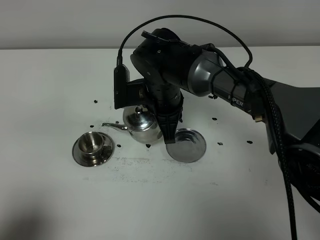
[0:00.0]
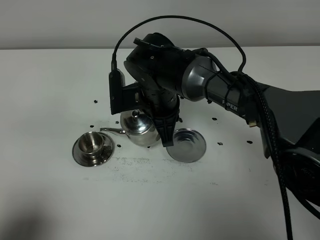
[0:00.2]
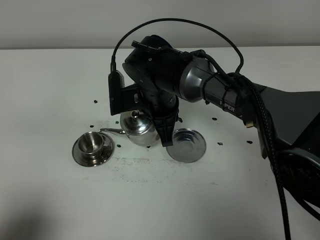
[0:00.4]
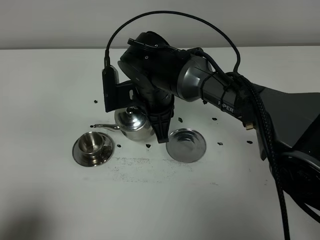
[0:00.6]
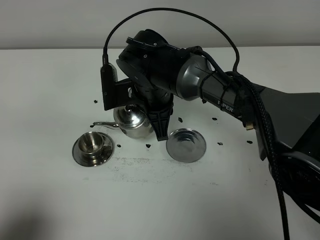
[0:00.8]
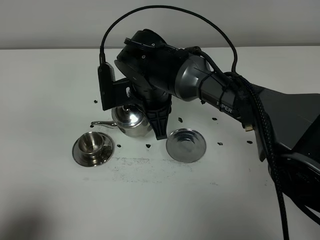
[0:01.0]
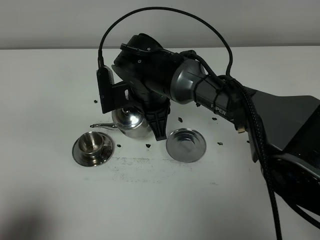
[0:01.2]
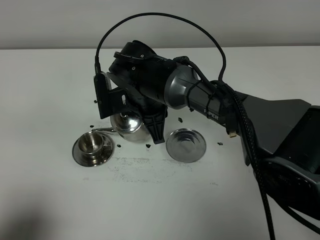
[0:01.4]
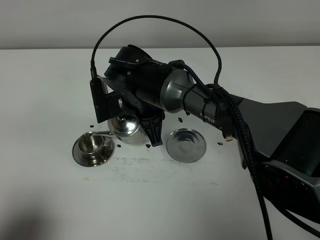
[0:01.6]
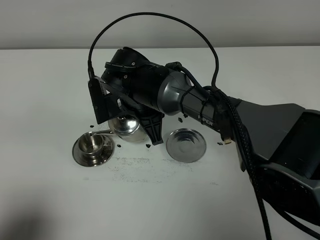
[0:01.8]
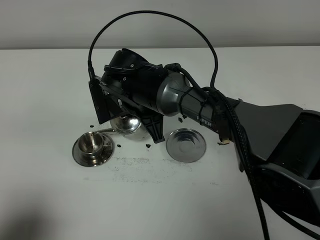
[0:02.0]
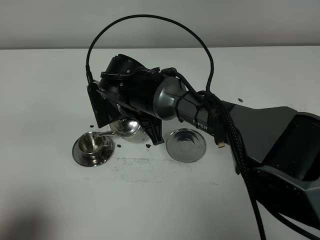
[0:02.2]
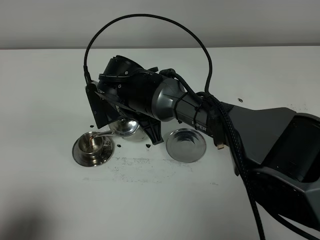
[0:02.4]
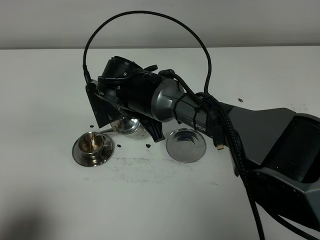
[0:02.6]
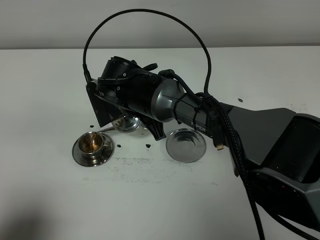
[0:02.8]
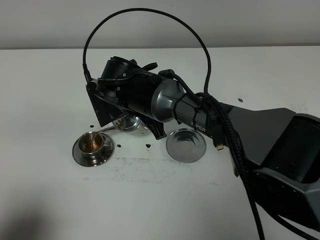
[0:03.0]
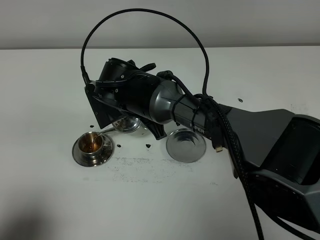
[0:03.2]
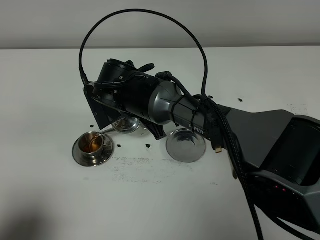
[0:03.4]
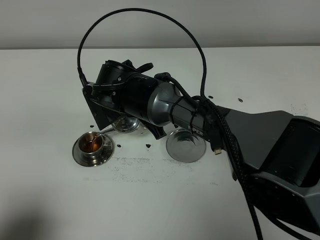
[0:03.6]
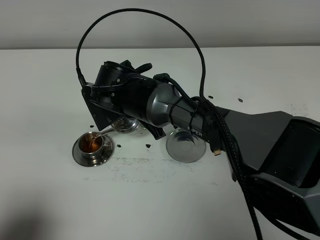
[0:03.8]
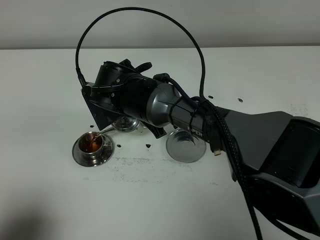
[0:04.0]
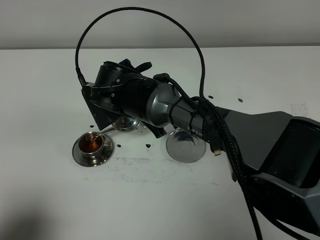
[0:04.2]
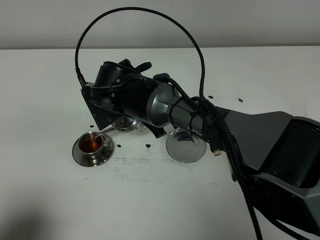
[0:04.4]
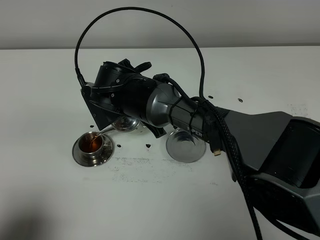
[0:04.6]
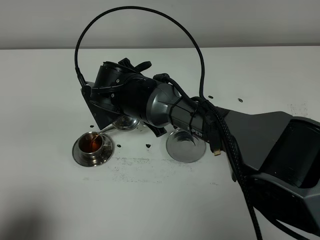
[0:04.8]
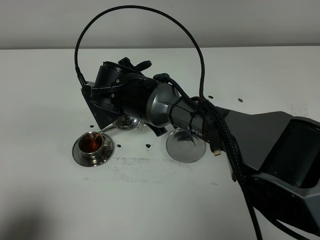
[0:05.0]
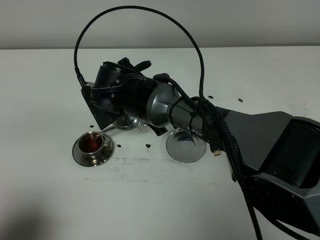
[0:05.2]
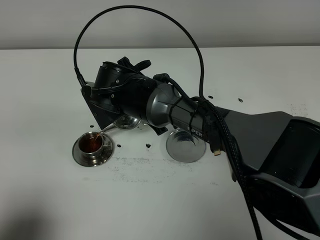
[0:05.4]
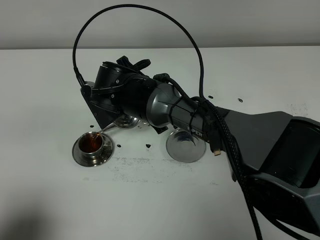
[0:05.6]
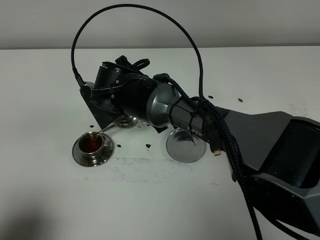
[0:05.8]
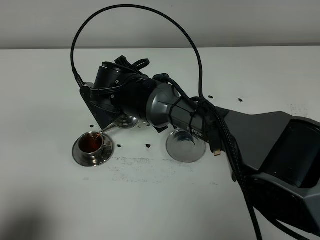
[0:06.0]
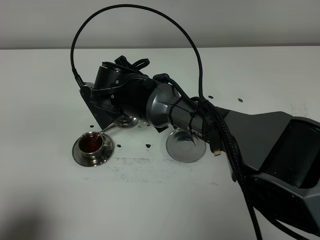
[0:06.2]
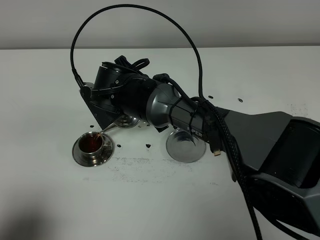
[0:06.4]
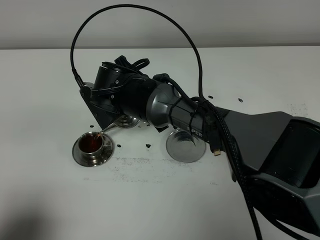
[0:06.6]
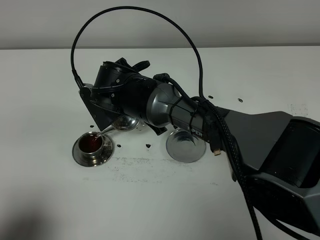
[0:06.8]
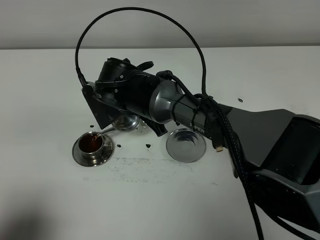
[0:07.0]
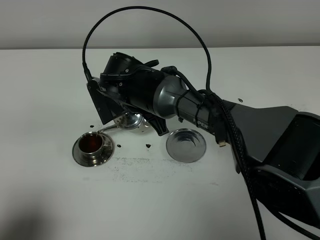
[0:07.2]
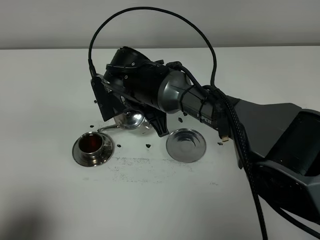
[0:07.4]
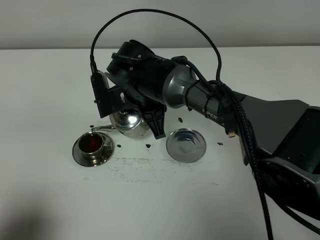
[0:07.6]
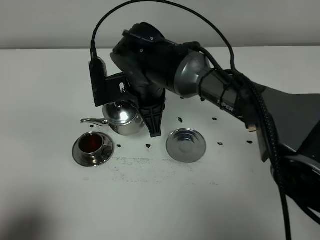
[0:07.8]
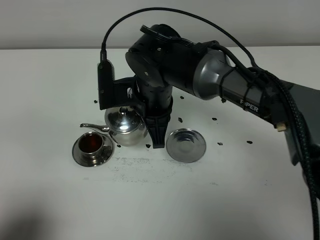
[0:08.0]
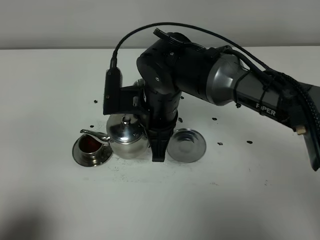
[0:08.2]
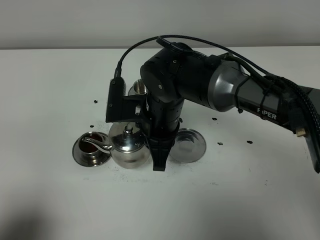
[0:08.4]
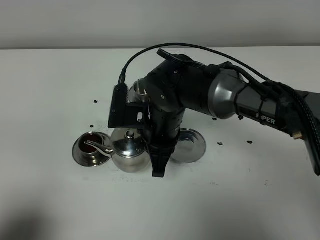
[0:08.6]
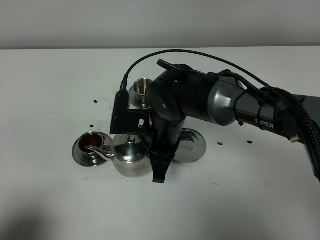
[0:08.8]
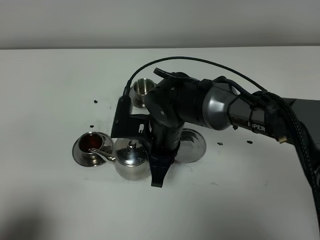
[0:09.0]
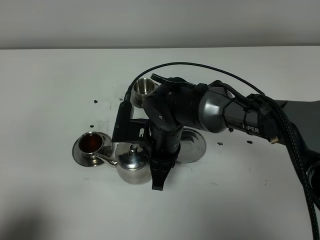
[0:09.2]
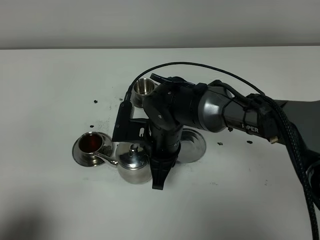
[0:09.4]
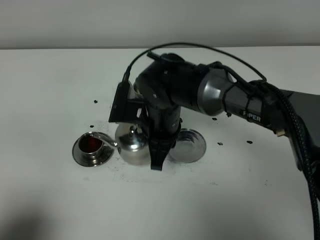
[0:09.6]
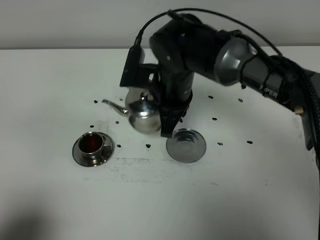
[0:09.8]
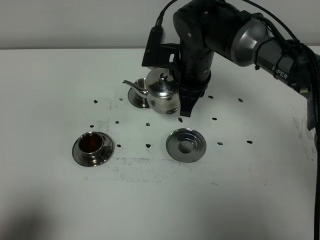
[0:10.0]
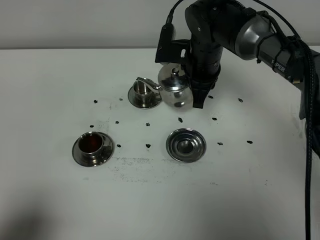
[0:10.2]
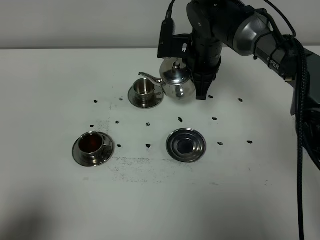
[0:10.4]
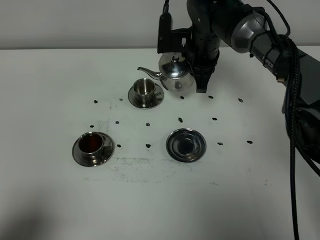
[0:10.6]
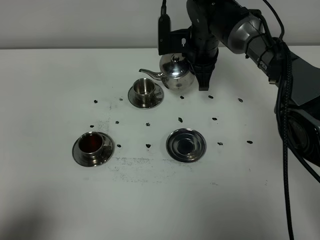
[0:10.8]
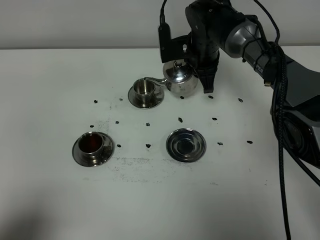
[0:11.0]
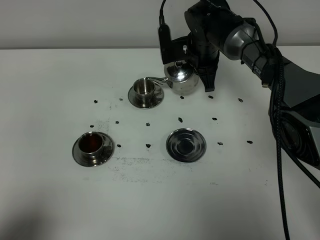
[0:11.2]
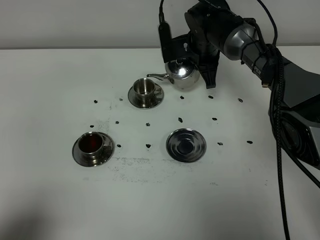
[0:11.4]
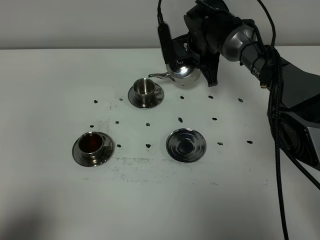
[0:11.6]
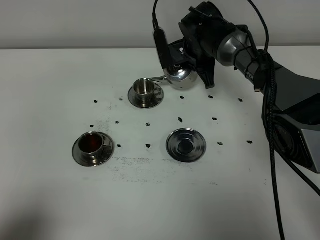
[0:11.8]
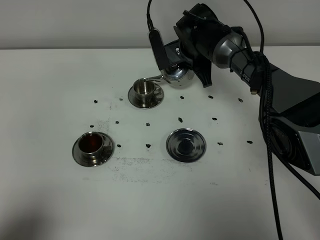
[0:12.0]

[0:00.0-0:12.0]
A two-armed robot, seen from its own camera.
Task of the whole recording: grasp the stainless steel teapot and pour the tea into the two stainless steel teacups one by one, put the stainless steel teapot back in its original place.
Step, 0:00.0 to 0:07.6: Pour tea into the teacup with the right gripper.
0:01.6 to 0:04.4: The grippers make only small movements.
0:04.4 to 0:06.0: Both grippers stay put.
0:07.6 to 0:09.0: The right gripper goes about 5 cm backward.
0:09.0 to 0:10.4: The right gripper goes about 15 cm forward and to the right.
0:10.4 to 0:12.0: The right gripper shifts some 5 cm forward.

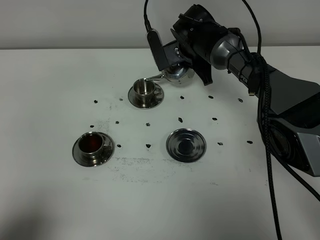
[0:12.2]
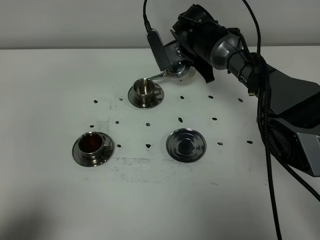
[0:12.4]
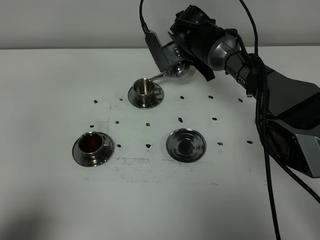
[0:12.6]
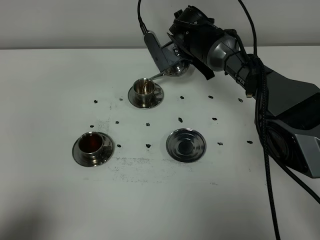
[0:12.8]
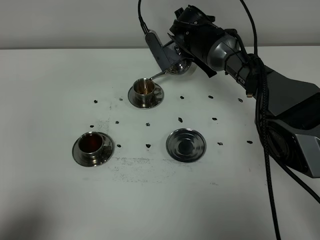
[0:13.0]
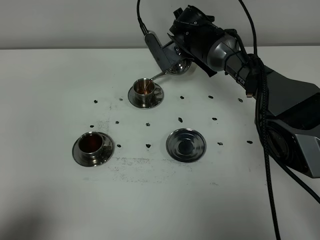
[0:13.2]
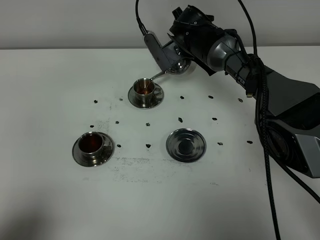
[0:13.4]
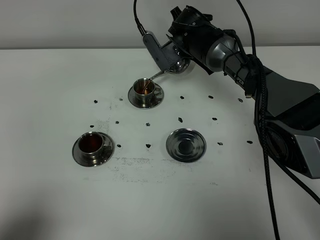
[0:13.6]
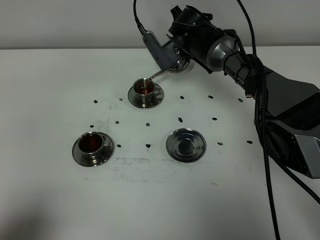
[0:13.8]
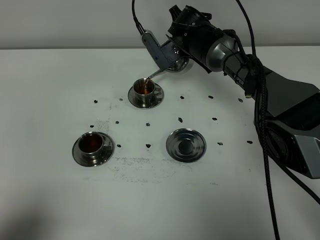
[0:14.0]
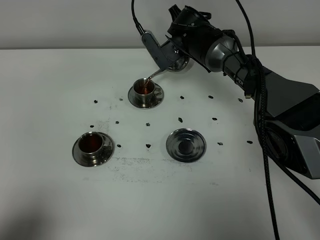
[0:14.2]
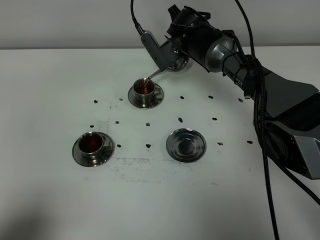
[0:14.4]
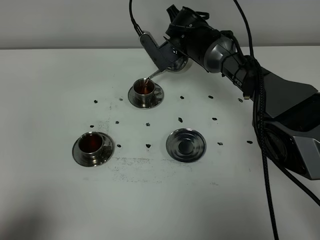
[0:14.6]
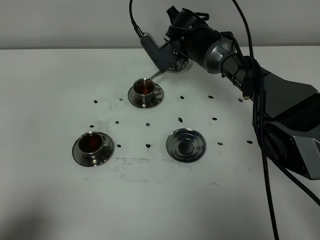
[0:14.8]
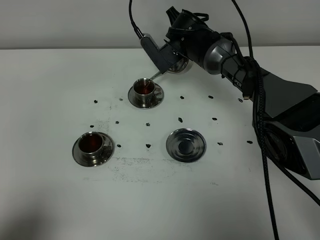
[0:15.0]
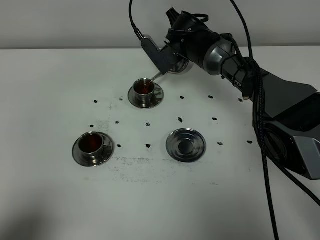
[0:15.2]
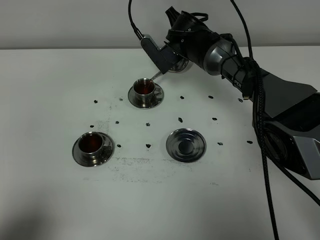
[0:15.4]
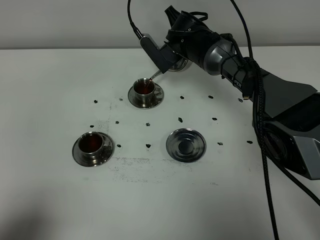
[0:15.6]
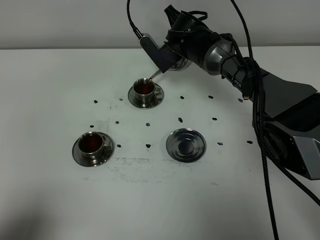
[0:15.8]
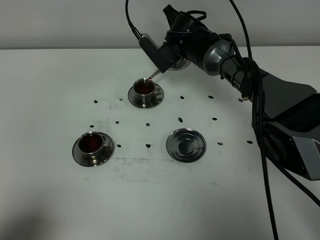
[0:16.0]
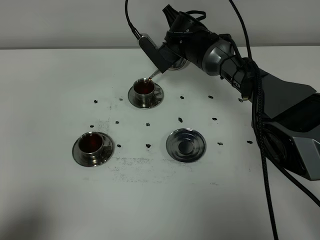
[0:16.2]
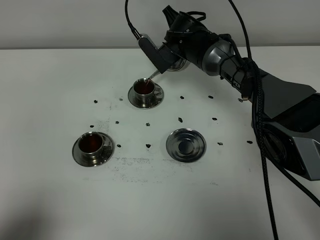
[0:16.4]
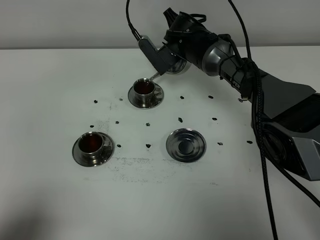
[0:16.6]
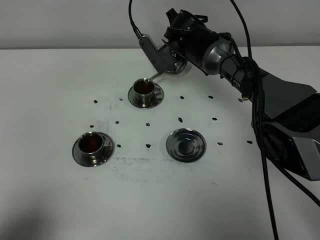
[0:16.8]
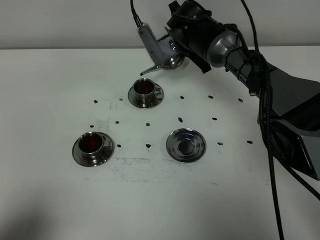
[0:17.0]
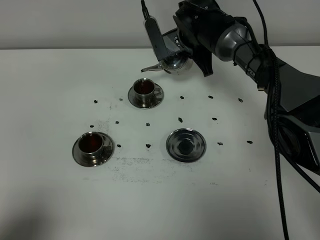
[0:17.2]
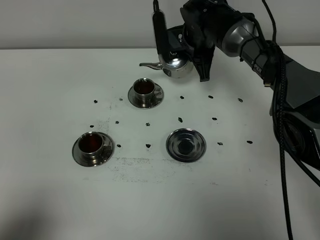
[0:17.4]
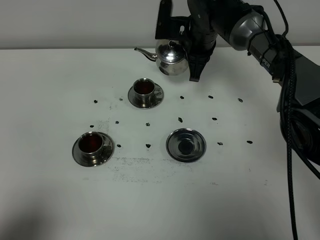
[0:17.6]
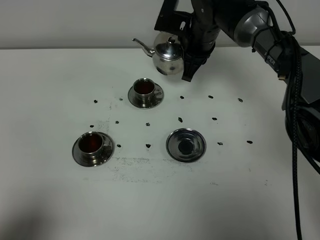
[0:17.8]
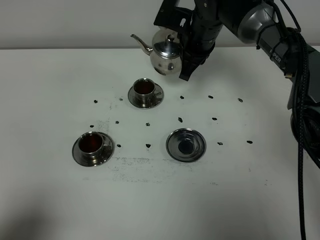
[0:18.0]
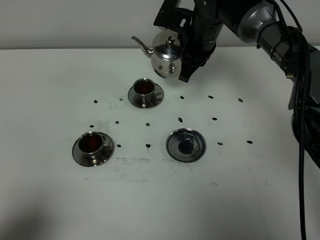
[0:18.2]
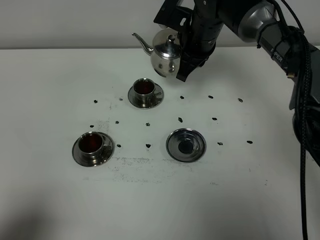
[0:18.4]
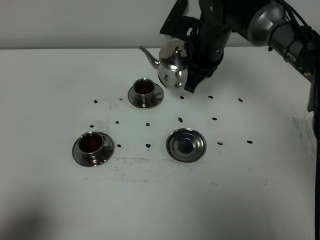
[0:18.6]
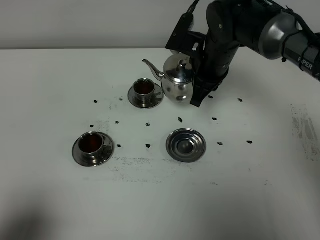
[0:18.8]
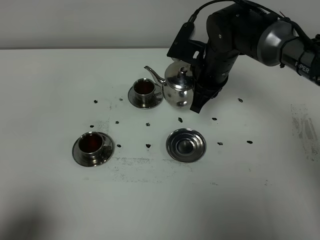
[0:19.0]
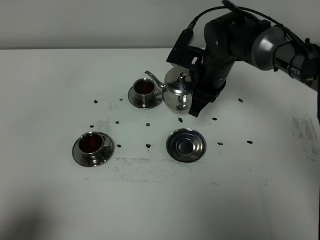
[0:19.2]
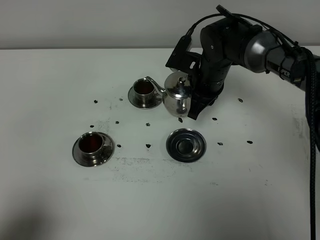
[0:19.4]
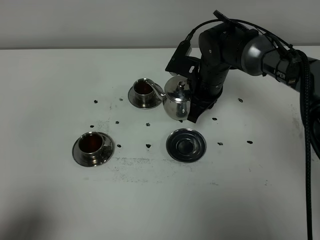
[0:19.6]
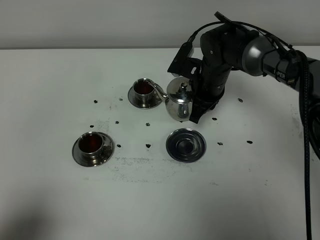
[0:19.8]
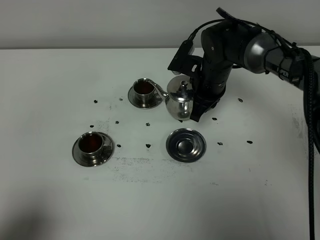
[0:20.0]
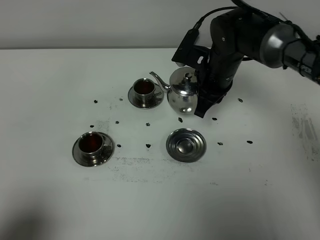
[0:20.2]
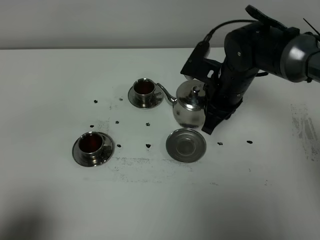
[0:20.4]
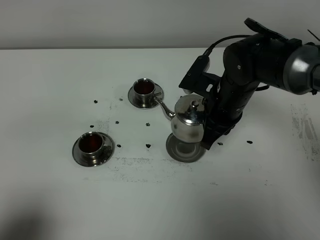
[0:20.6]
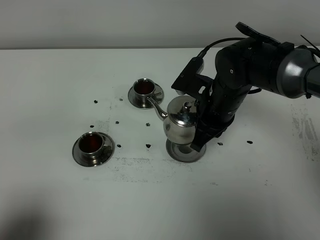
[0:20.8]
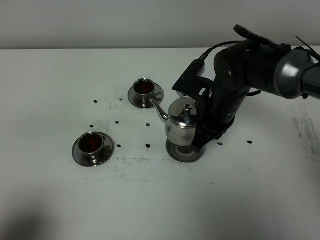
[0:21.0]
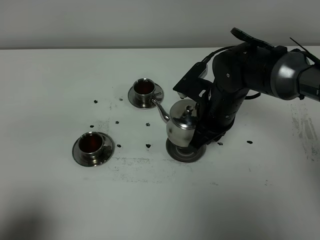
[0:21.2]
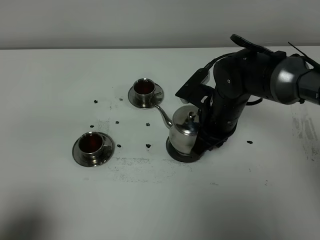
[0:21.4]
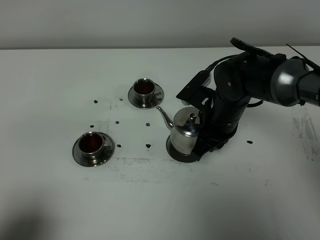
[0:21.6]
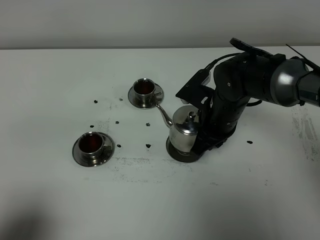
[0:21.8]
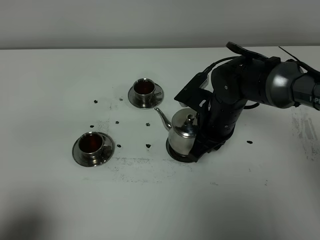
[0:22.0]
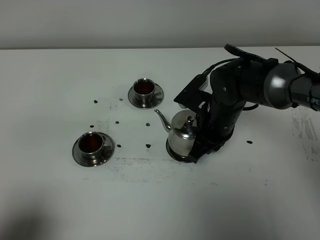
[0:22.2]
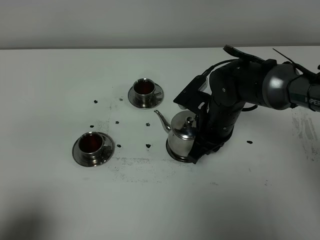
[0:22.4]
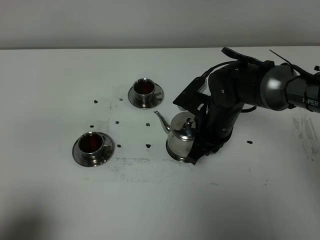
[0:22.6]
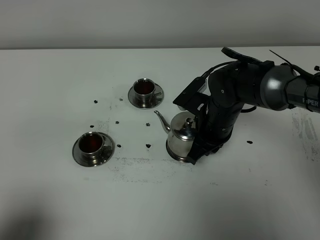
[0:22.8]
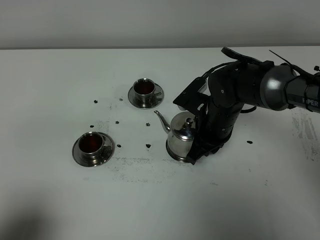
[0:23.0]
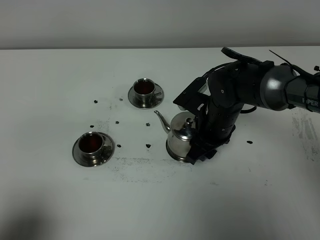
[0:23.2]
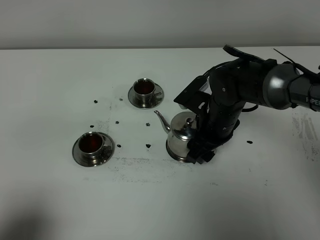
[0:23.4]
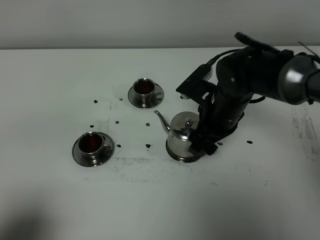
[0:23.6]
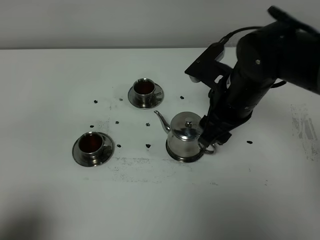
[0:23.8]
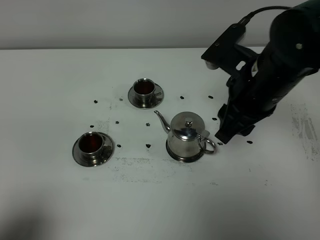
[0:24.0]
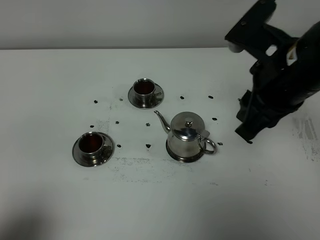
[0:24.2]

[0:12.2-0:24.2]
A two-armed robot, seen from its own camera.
Task of the whole recording: grasp the stainless steel teapot and pour the tea into the two stainless steel teacups one by one, put the stainless steel teapot back in its original place.
Step, 0:12.2 to 0:17.0: Pour tea into the teacup with the right gripper.
0:12.2 to 0:13.8: The grippers stay close to where they were, moving slightly.
0:13.8 to 0:15.2: Both grippers stay put.
0:15.2 to 0:16.6: The two grippers keep their place.
0:16.6 to 0:18.2: The right gripper travels upward by some 5 cm.
0:18.2 to 0:19.8: The right gripper moves downward, about 10 cm.
0:19.8 to 0:21.2: The right gripper is displaced backward by roughly 10 cm.
0:21.2 to 0:22.6: There are only small adjustments of the grippers.
0:22.6 to 0:24.2: The right gripper travels upward and backward by some 25 cm, and opens up.
